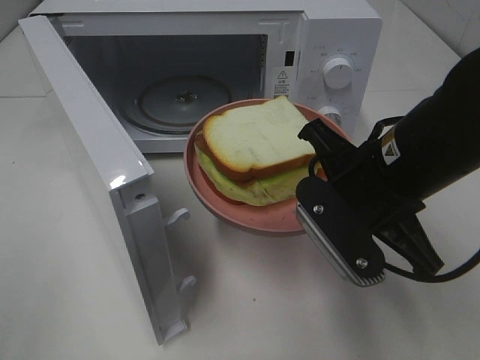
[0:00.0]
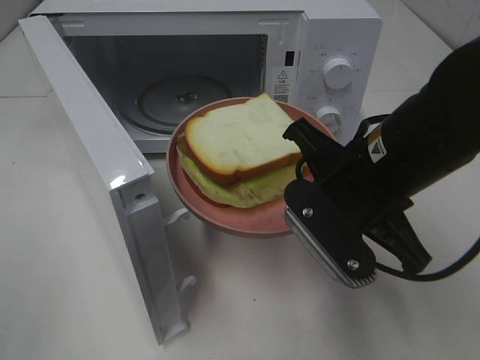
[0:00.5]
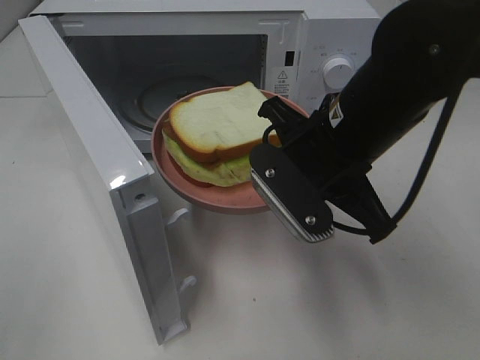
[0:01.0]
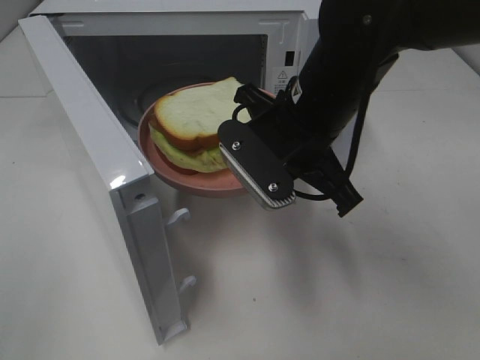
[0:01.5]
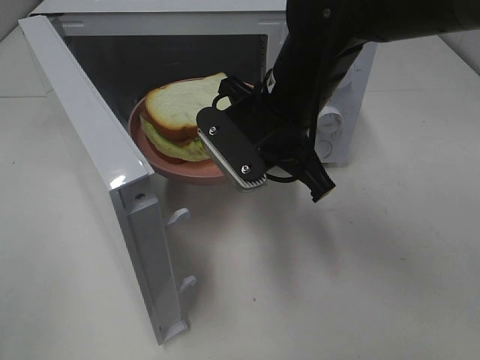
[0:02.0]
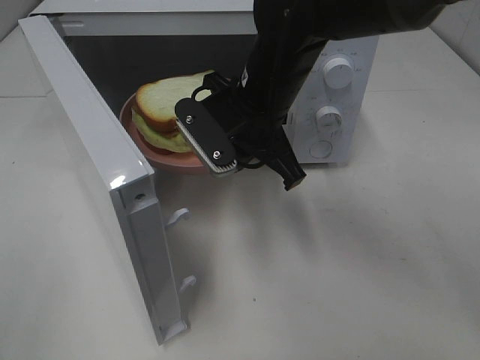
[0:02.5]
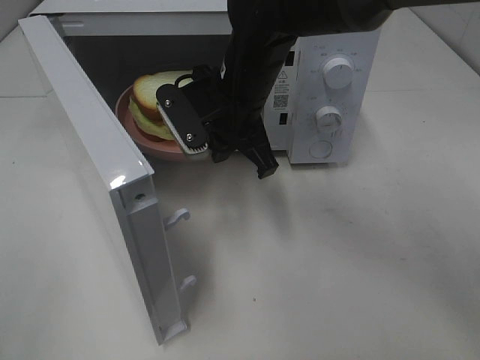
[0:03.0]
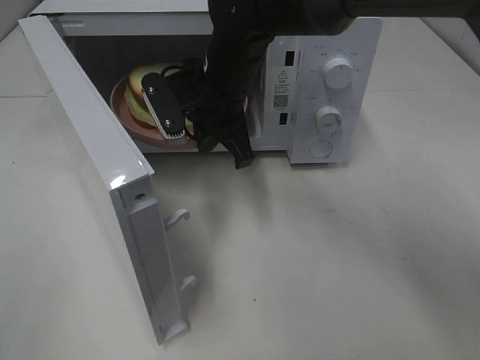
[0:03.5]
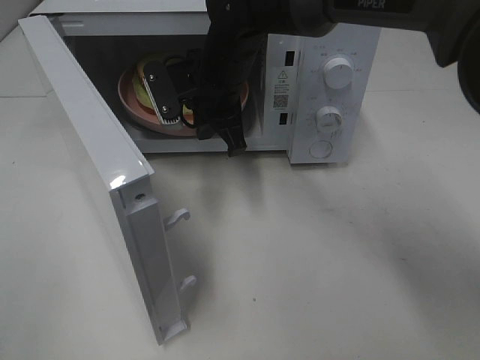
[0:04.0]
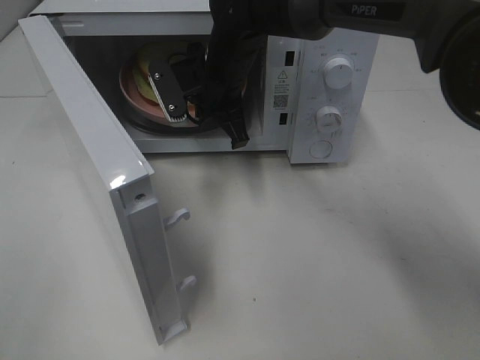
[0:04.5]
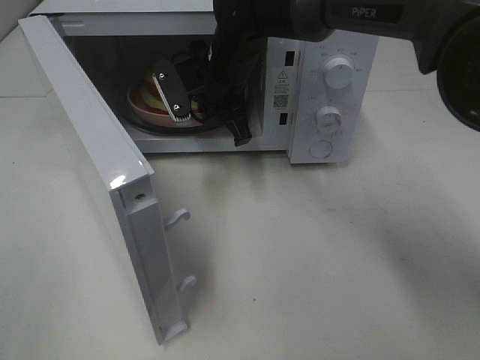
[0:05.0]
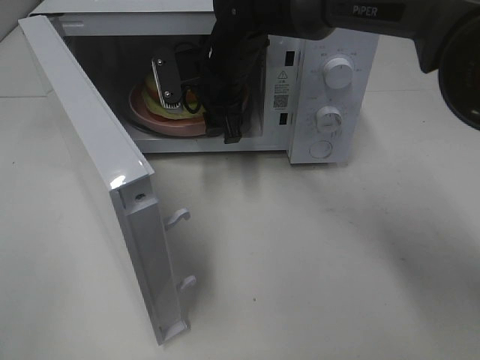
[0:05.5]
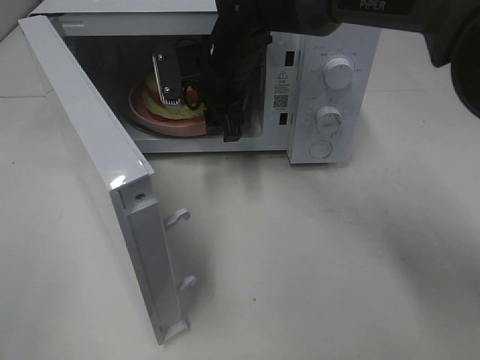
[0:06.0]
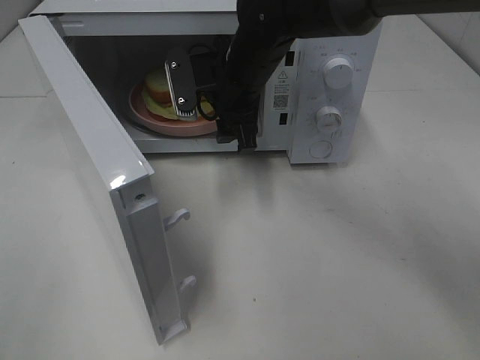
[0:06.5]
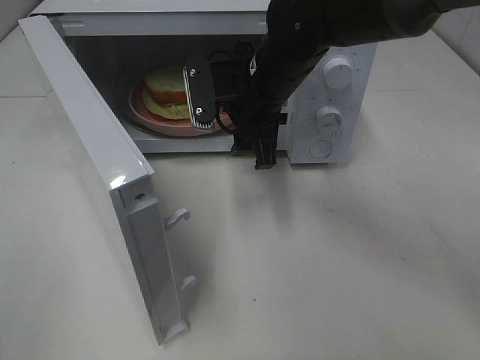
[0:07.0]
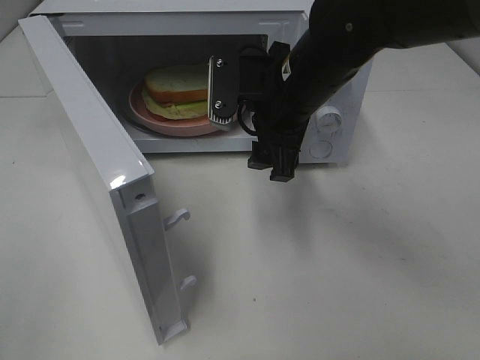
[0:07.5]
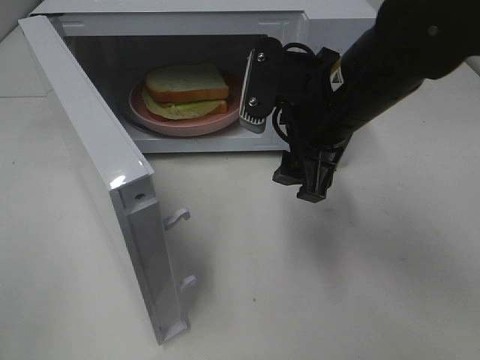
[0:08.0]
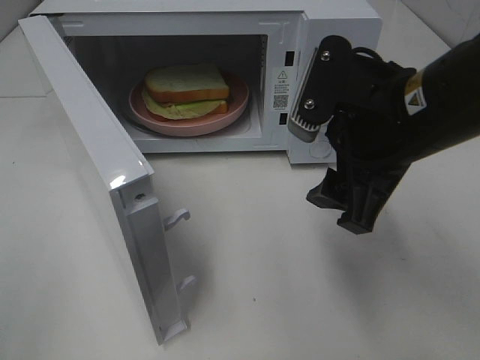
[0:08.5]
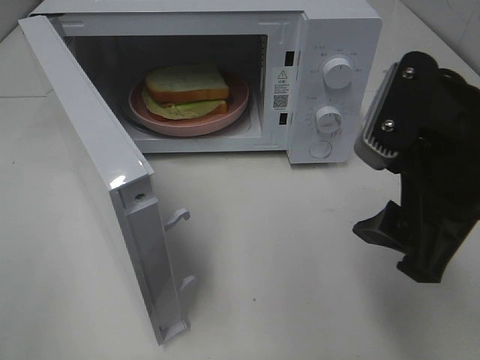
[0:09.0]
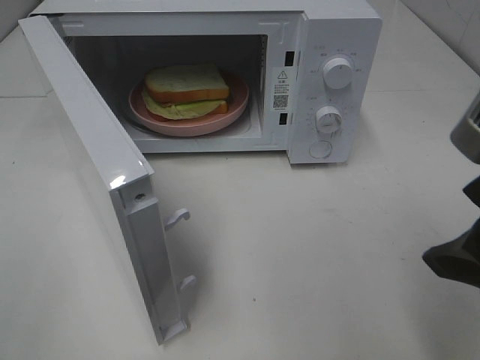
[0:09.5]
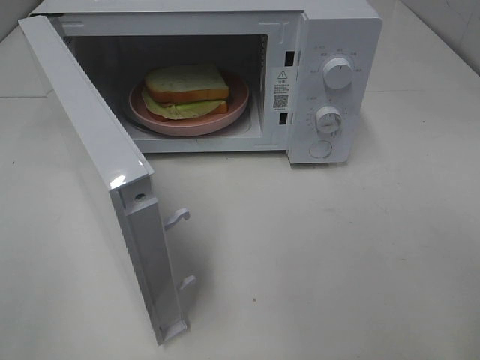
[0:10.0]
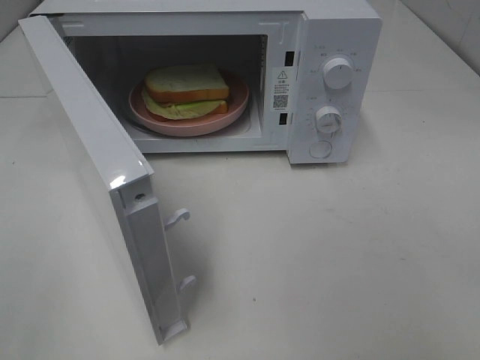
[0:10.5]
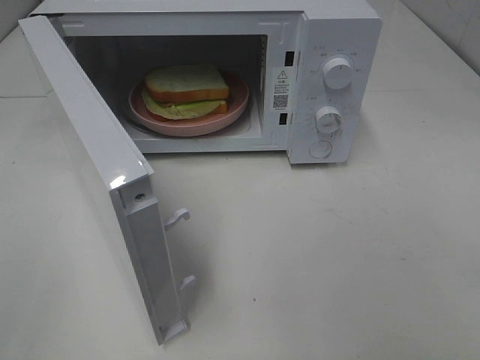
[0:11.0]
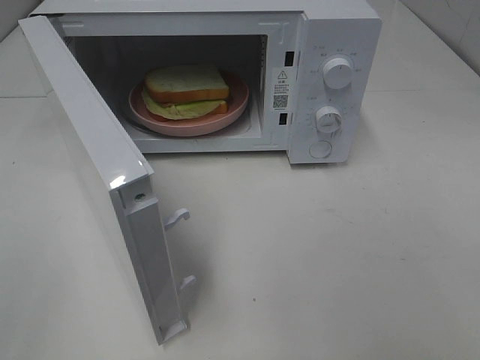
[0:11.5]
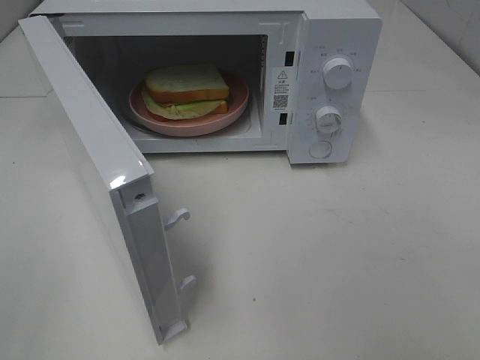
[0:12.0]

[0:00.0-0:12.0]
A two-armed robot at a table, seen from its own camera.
Task of the whole recording: Heat Sandwich.
Step, 0:00.0 to 0:05.5: Right hand: place the plate in the microwave.
0:00.0 to 0:02.0: The right gripper goes roughly 10 cm forward and to the left.
0:02.0 to 0:04.0: The right gripper travels forward and to the left by roughly 10 cm.
0:04.0 to 0:06.0: The right gripper opens its fingers.
0:06.0 to 0:08.0: The right gripper goes about 20 cm backward and to the right.
0:08.0 to 0:10.0: The right gripper goes roughly 25 cm backward and to the right.

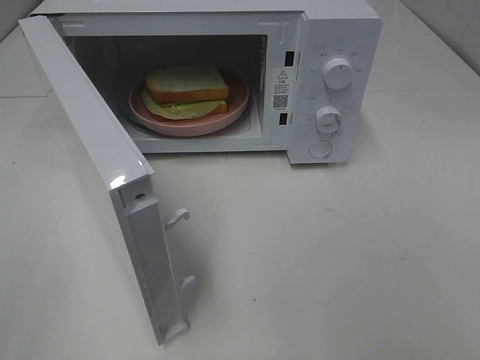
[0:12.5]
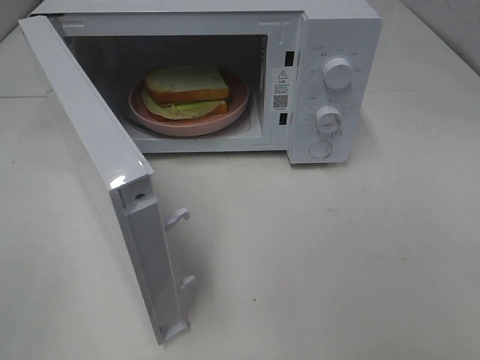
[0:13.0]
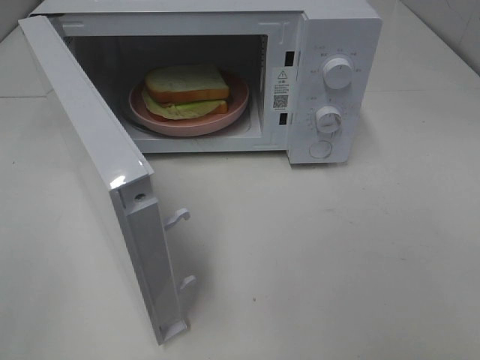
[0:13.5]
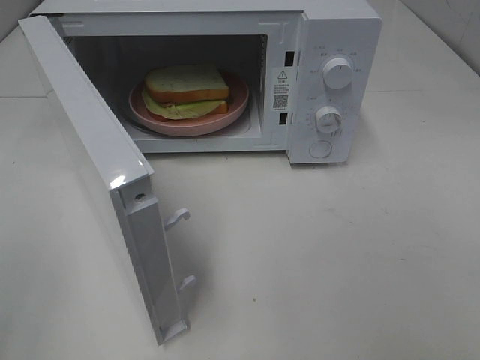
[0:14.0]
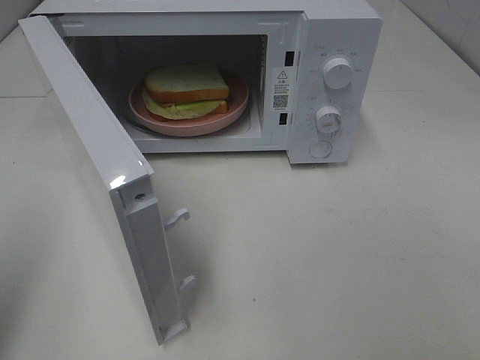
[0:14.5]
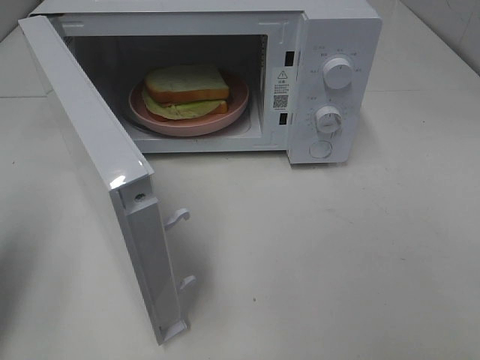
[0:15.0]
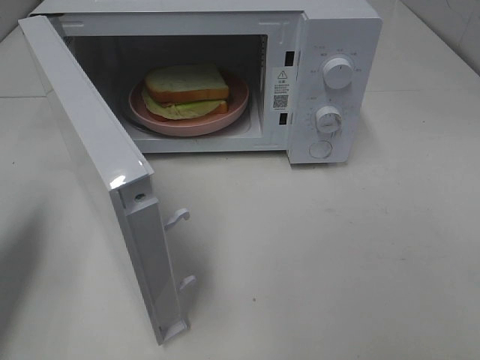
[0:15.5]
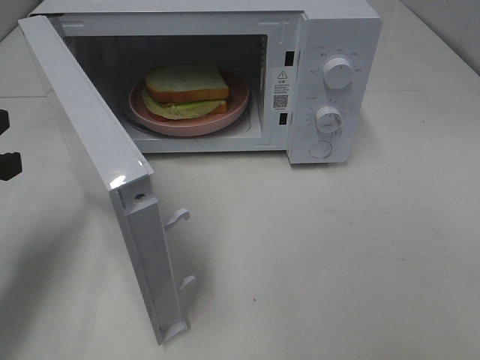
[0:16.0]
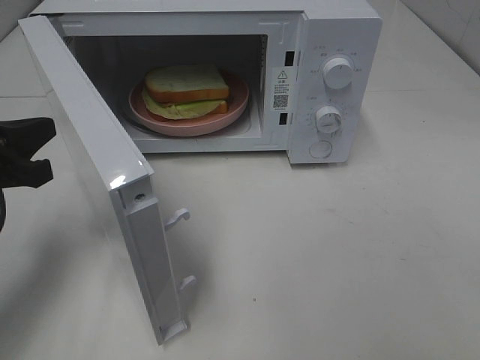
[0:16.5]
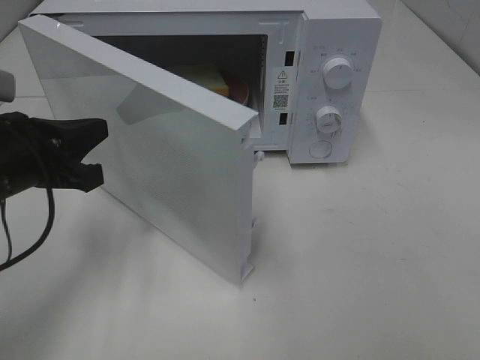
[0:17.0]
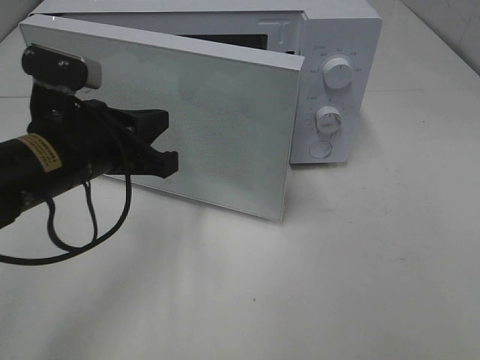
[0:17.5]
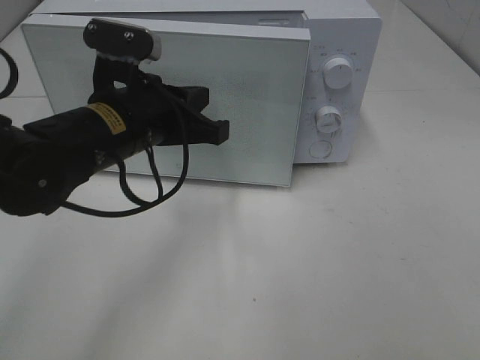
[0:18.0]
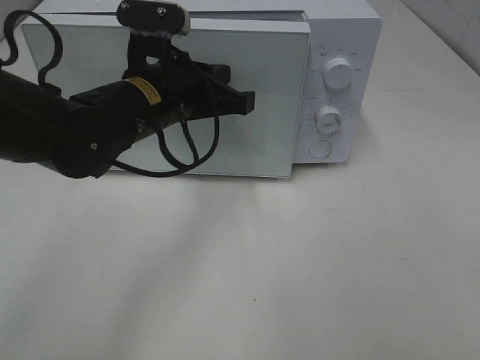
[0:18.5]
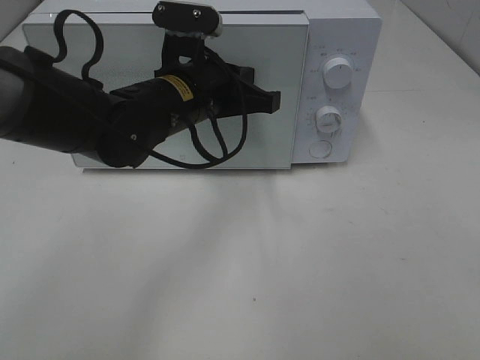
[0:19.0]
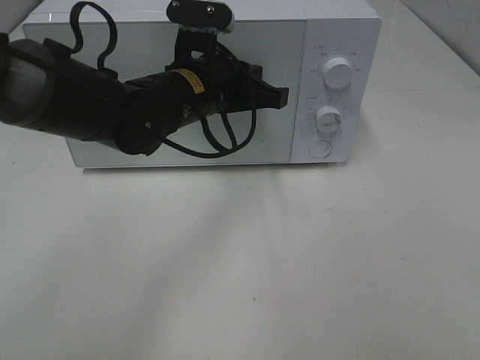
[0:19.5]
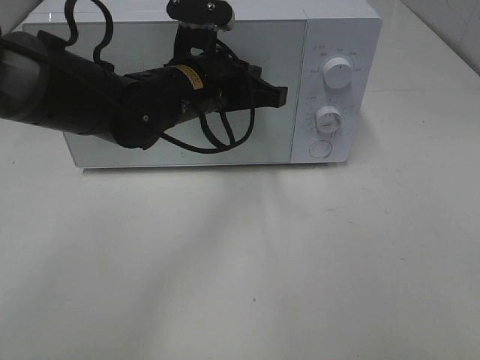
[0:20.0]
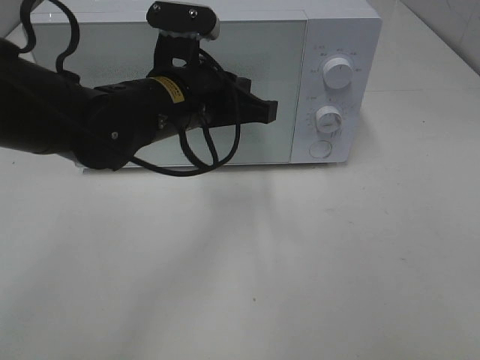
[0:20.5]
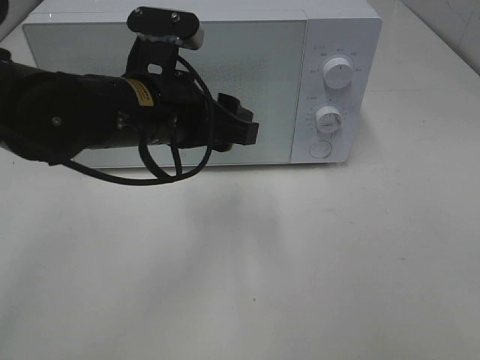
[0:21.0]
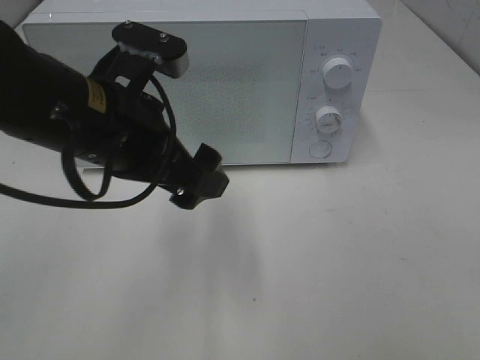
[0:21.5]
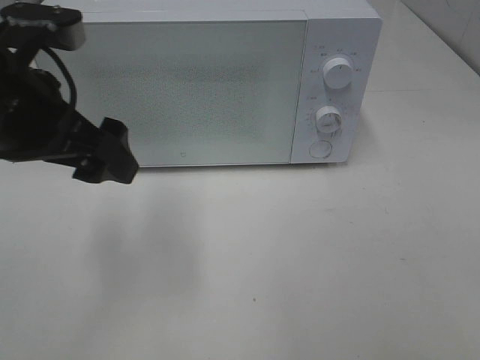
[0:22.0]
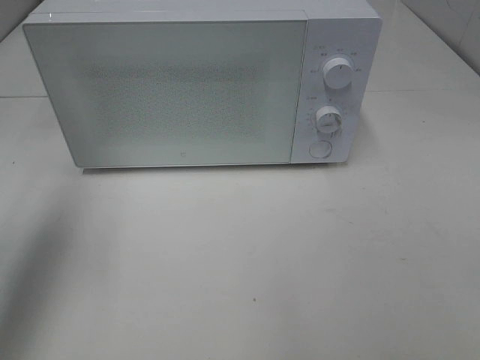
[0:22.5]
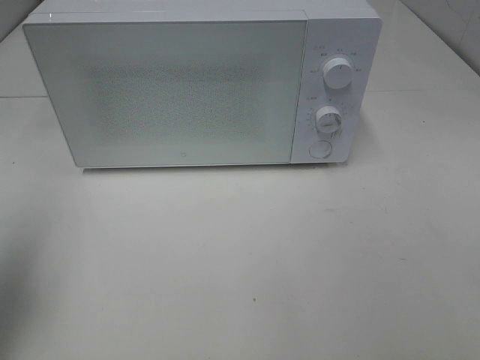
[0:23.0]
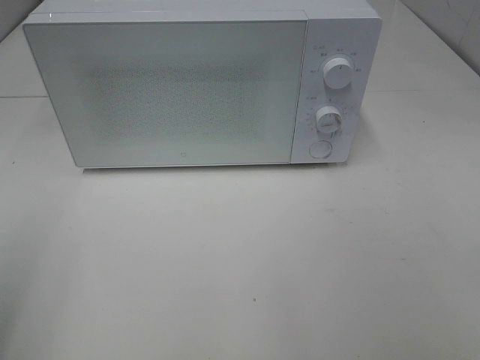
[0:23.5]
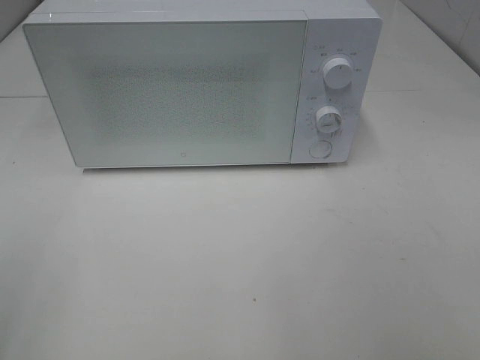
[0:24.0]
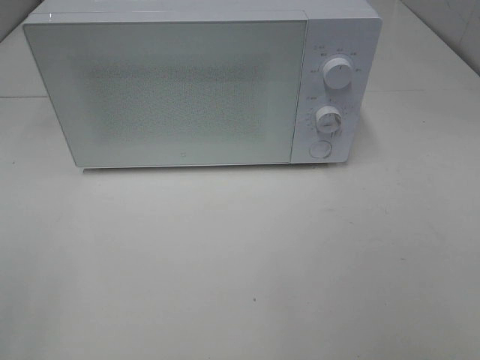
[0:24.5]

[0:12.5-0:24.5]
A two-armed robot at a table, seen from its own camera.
Task of the whole recording: Heat Sandwich.
Step, 0:12.5 to 0:20.5: Left hand: close the microwave door.
0:12.5 to 0:14.5: The left gripper moves forward, approximately 10 cm, and closes.
0:14.5 to 0:16.5: The left gripper moves forward, downward and to the right, about 20 cm.
0:16.5 to 0:18.5: The left gripper travels to the right and forward by about 20 cm.
0:18.5 to 0:20.5: There are only small adjustments of the grippers.
0:20.5 to 0:22.5: The left gripper is displaced to the left and upward by approximately 25 cm, and opens up.
0:22.5 to 0:24.5: The left gripper heads backward, covering roughly 25 cm.

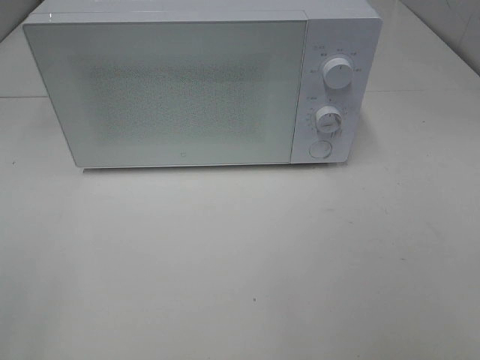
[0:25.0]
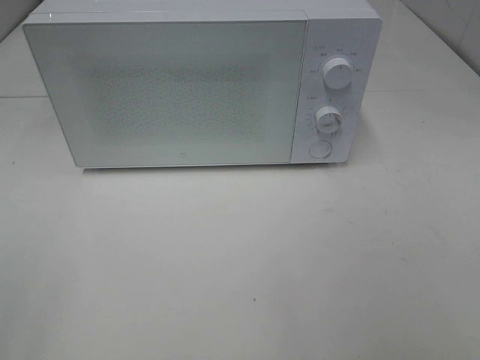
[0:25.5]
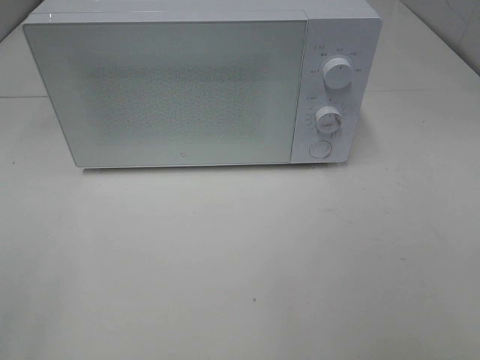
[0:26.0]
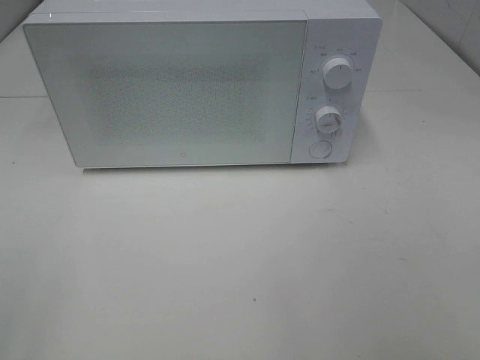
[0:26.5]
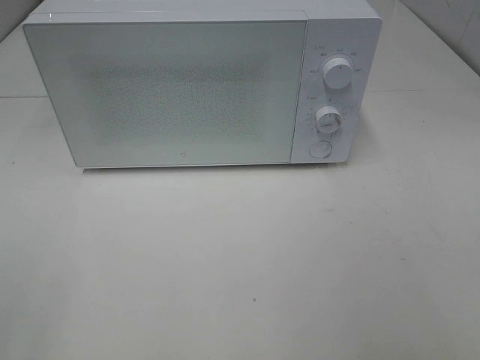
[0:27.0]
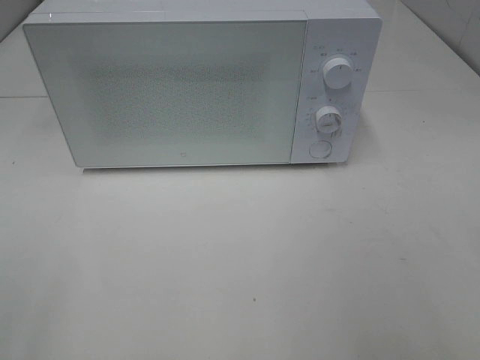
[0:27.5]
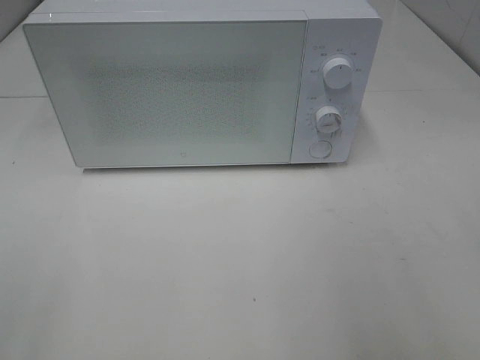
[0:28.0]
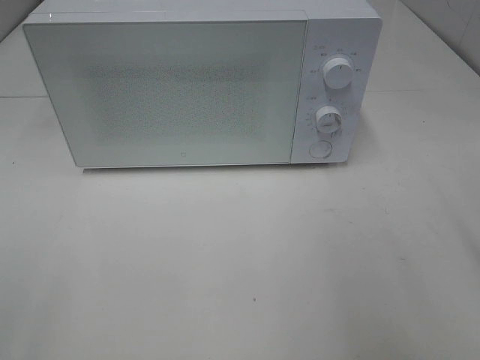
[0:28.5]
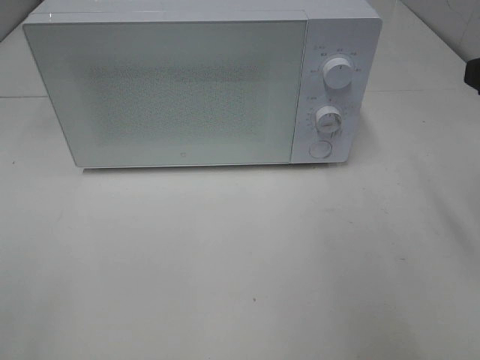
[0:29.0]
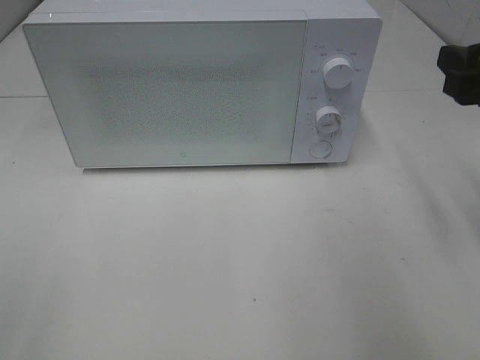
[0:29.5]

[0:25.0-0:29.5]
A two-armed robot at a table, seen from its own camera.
Task of the whole recording: Heat Sandwich.
0:27.0 to 0:29.5: The right gripper shifts roughly 20 cm forward.
